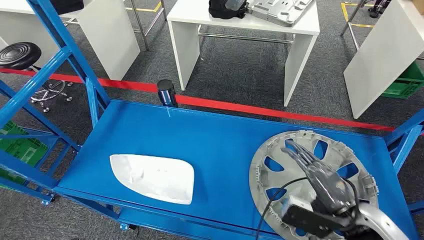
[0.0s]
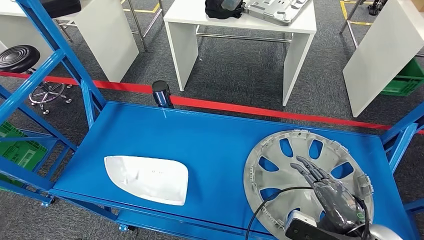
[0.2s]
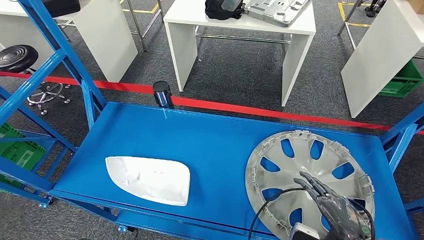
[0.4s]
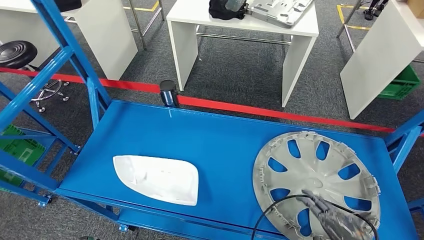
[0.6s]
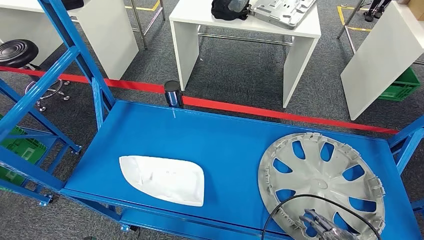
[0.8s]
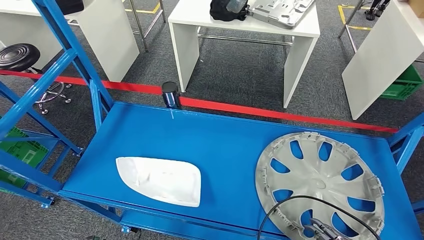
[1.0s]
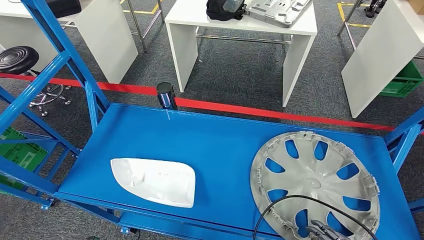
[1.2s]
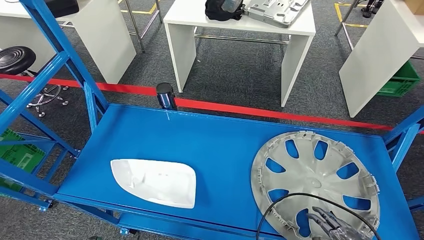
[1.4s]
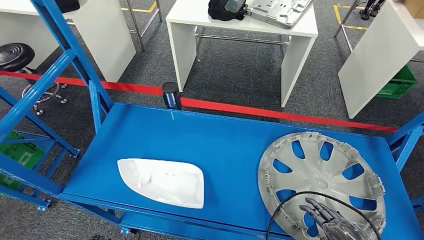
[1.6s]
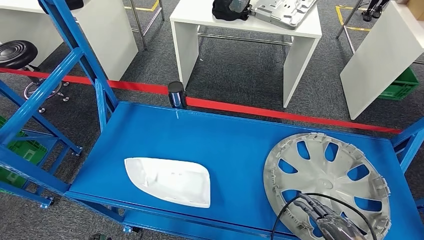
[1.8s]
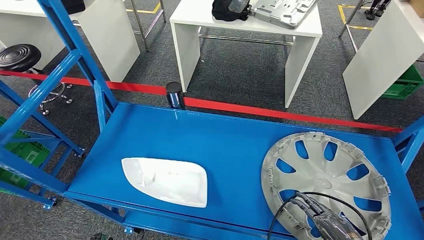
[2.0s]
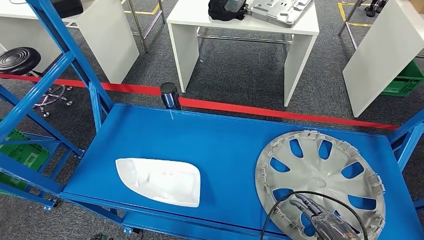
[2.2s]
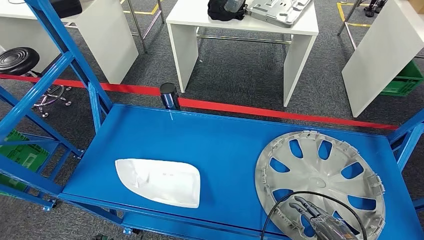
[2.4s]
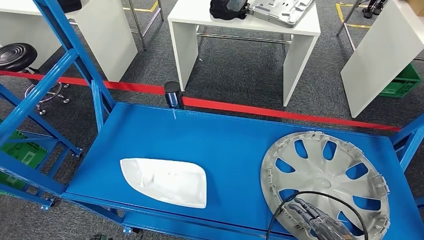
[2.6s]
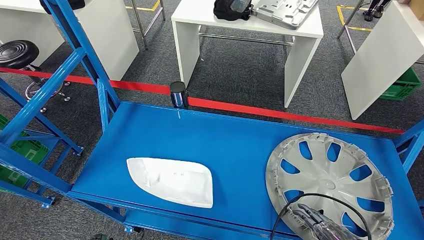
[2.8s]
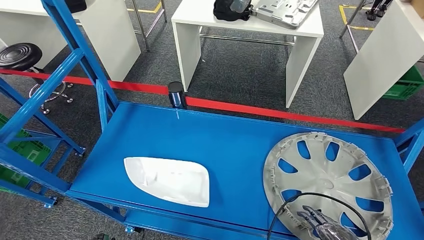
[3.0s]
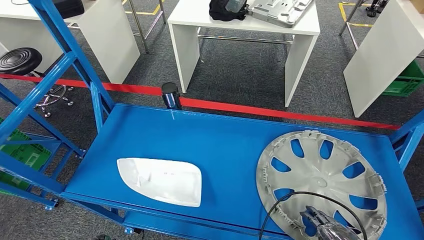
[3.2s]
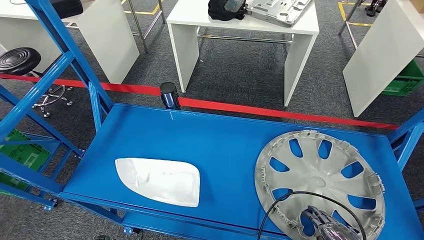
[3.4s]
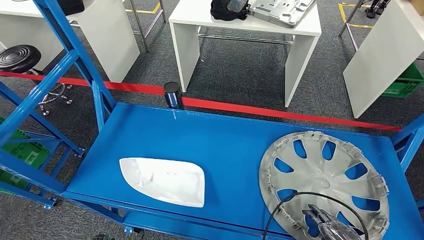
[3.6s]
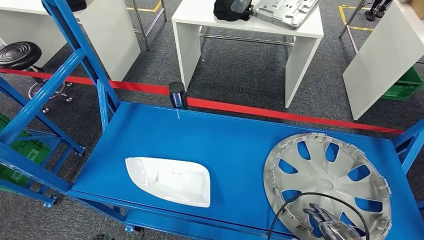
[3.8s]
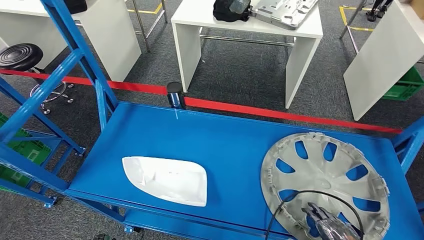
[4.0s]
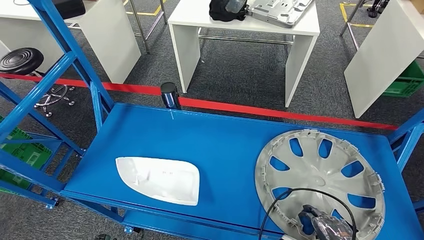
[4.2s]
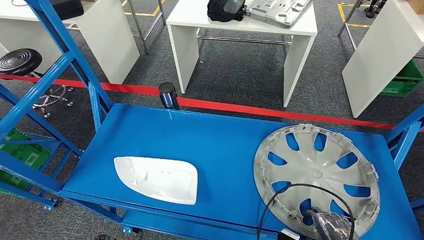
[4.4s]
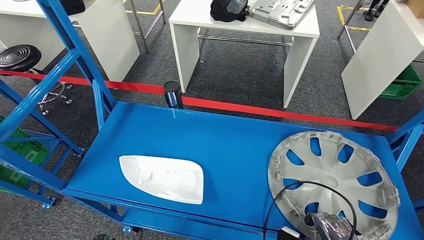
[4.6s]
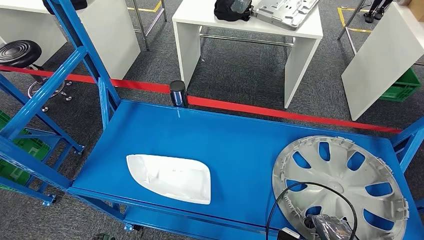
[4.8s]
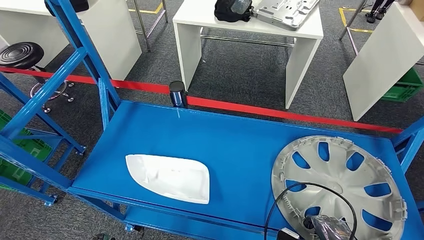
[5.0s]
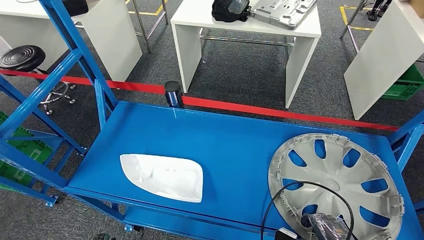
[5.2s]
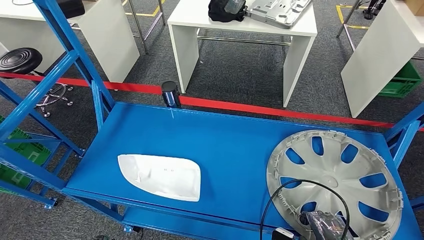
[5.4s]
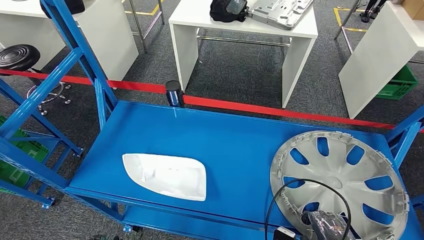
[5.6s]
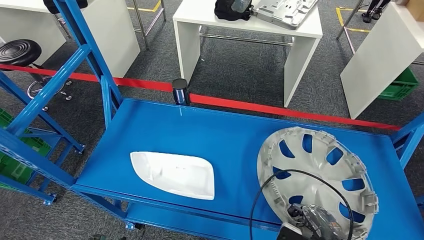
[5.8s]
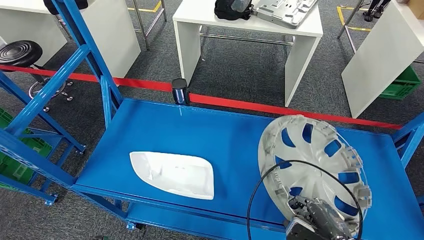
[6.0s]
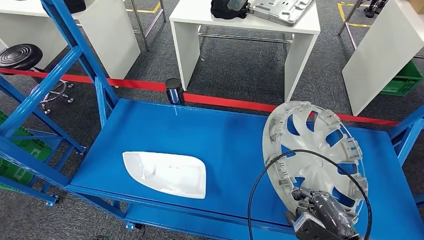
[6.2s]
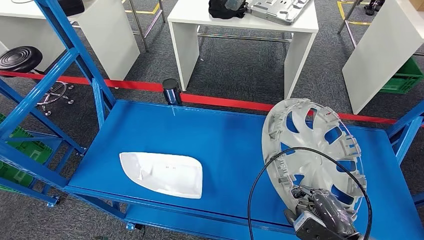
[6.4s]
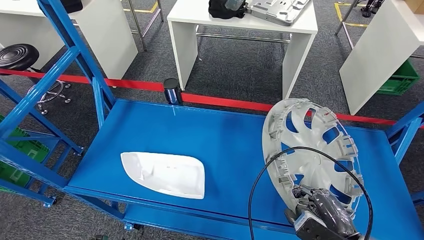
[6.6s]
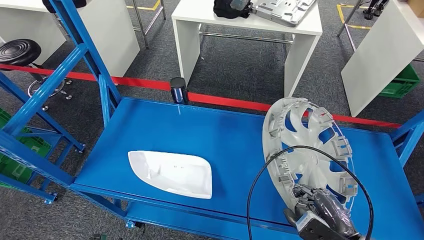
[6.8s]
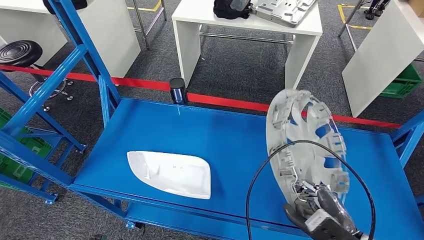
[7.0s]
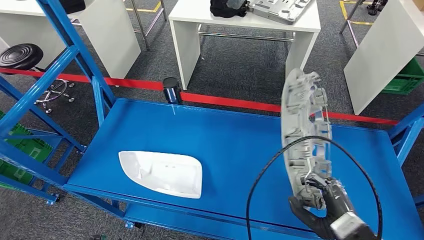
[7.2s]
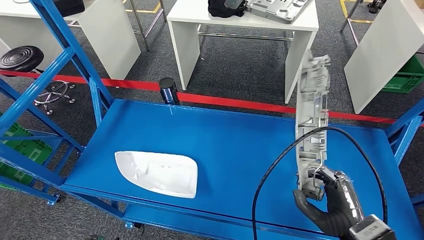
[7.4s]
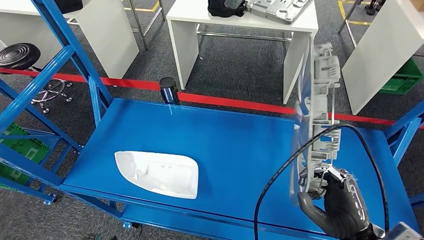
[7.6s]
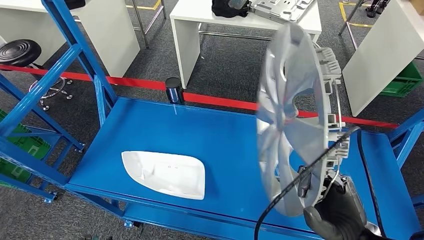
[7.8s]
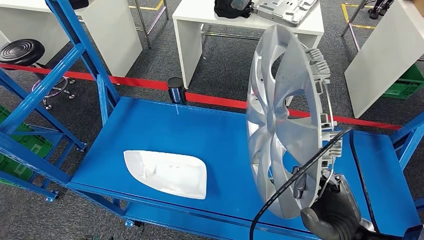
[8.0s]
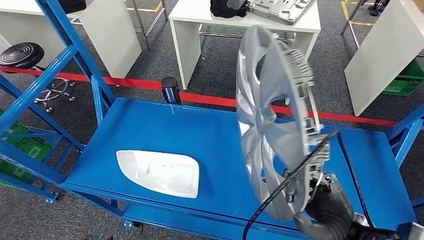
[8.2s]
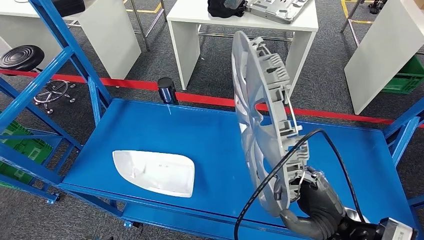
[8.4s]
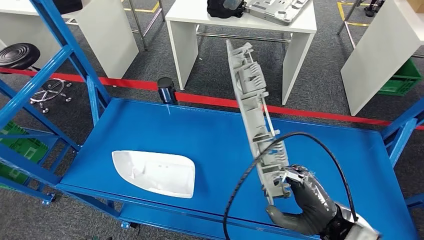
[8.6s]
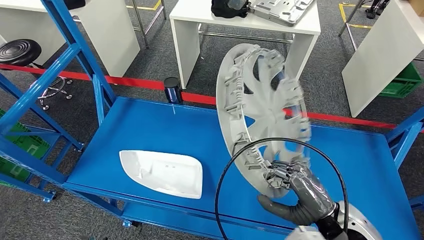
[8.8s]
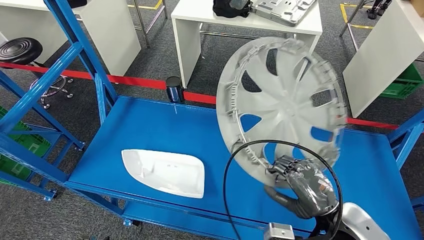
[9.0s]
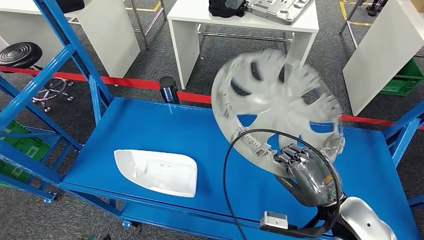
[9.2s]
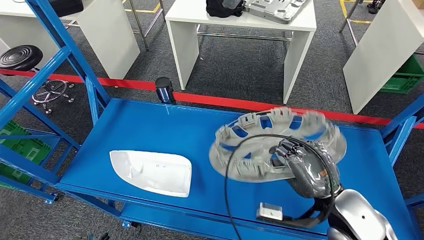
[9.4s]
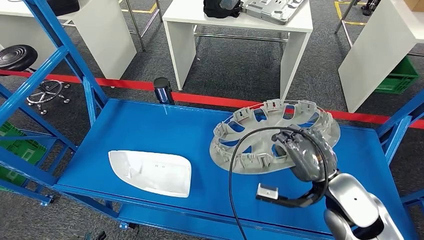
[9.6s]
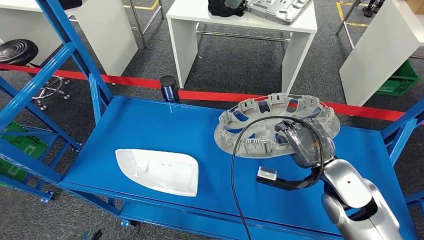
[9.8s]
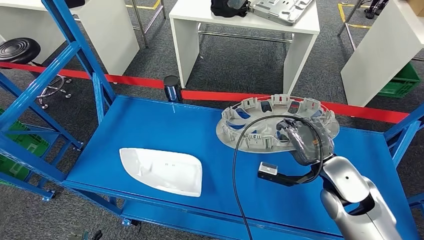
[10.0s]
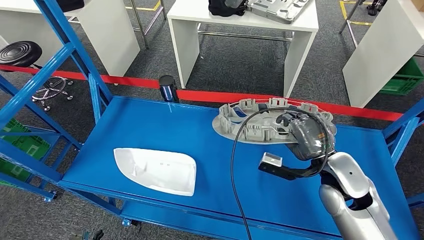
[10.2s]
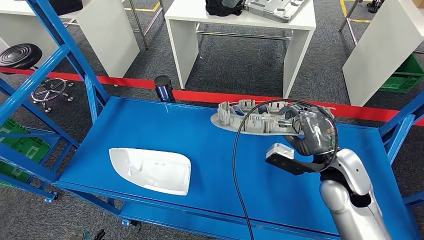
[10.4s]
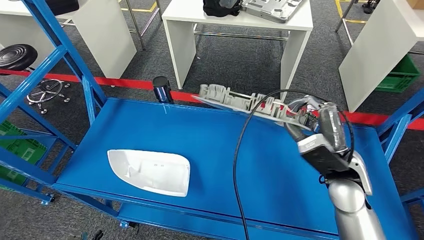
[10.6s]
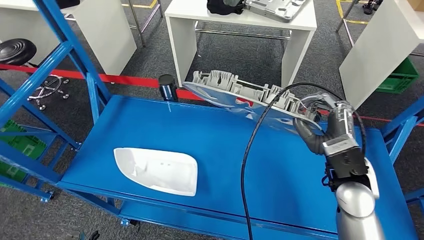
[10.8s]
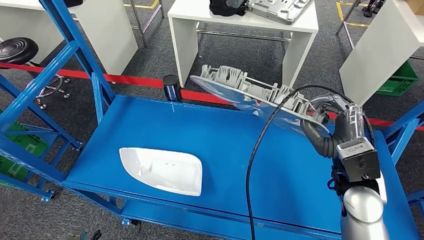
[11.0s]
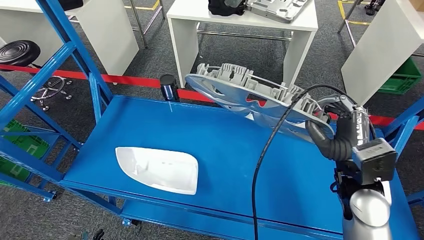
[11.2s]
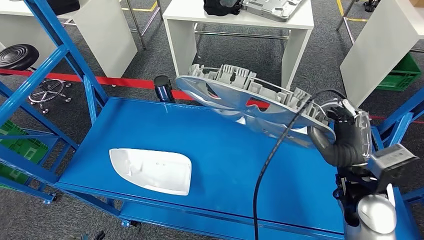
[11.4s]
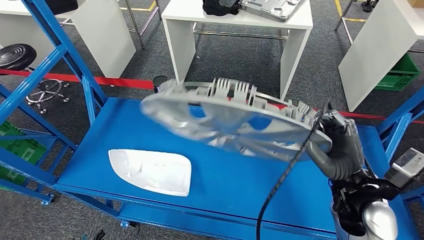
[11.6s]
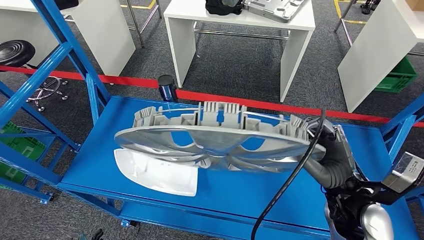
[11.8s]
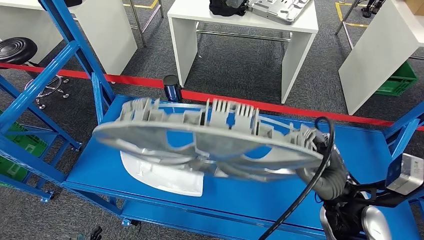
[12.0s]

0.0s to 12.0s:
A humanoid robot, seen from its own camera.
Step, 0.0s to 7.8s: Pick up the small component from the shelf.

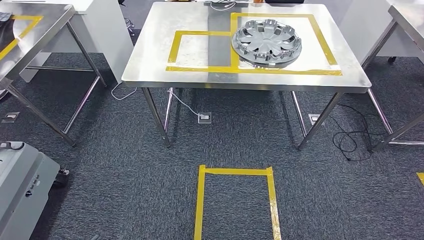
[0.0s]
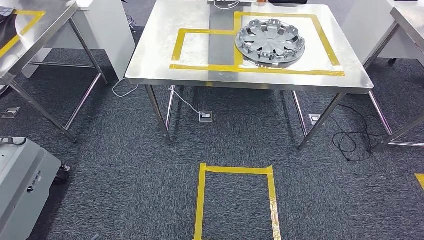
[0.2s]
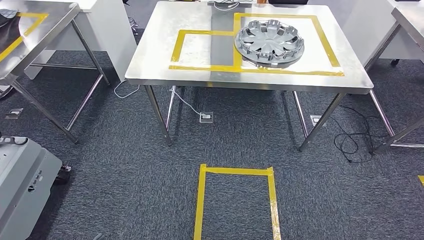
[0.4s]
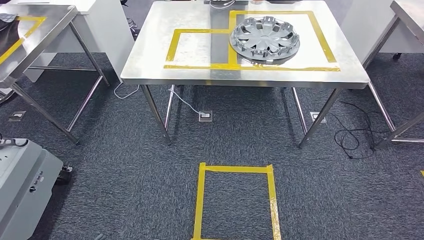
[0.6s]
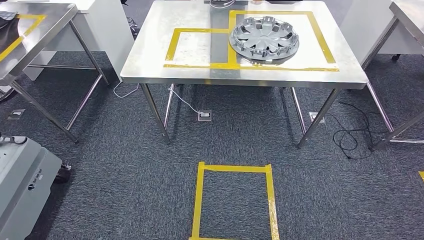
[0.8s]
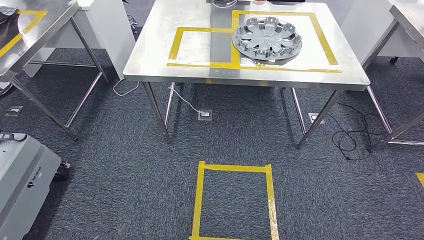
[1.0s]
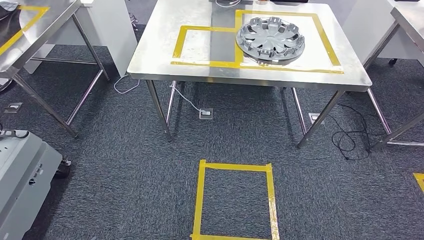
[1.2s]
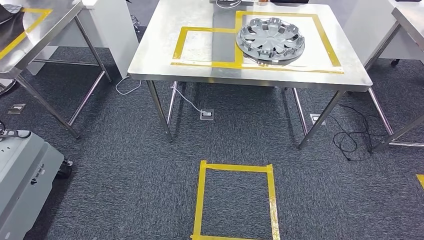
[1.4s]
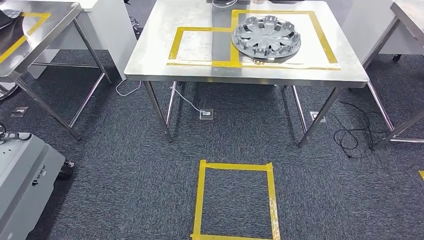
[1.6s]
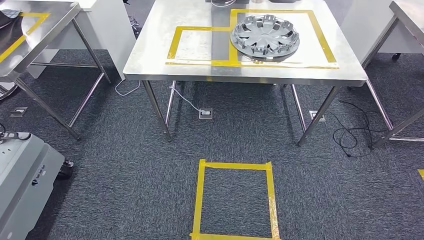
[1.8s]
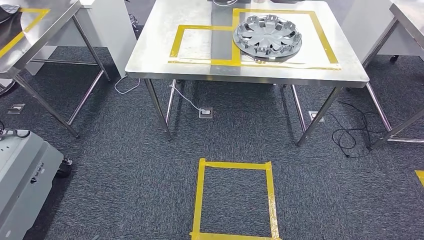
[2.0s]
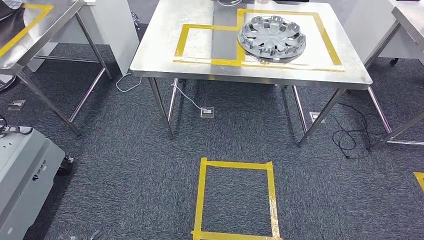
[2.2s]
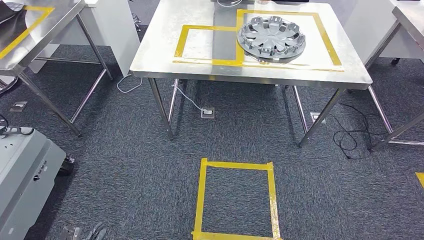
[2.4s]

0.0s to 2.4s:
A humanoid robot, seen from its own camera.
Step, 0.0s to 2.4s: Return to the initial position at the workbench.
0.0s to 1.2s: The hands move only a little.
1.2s to 2.4s: The hands move only a little.
